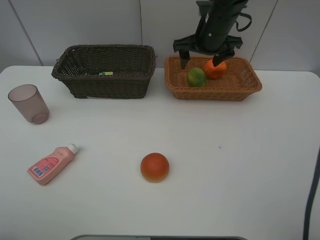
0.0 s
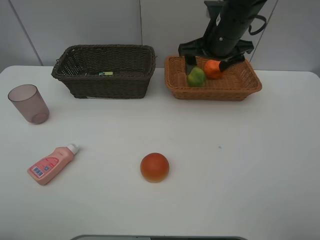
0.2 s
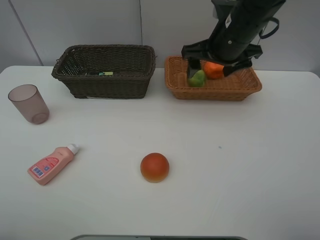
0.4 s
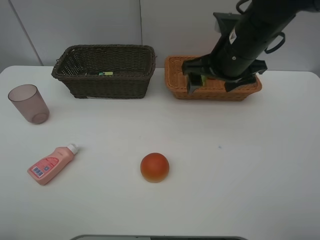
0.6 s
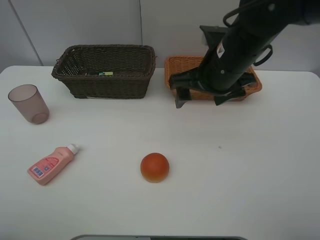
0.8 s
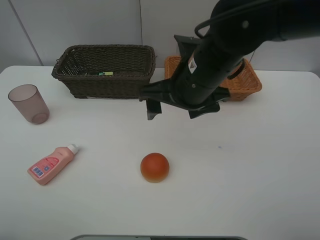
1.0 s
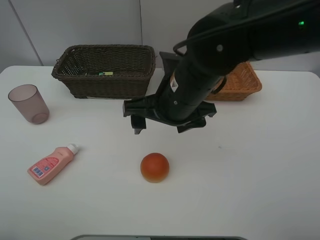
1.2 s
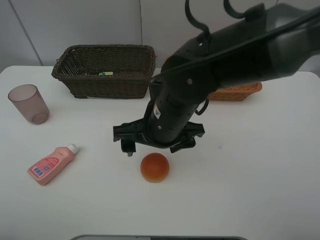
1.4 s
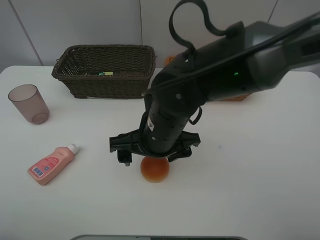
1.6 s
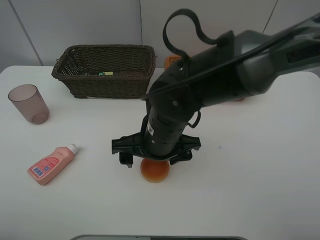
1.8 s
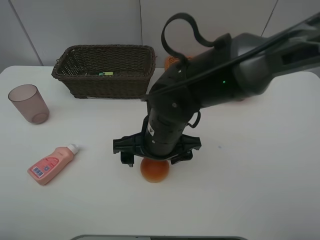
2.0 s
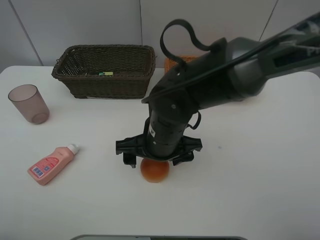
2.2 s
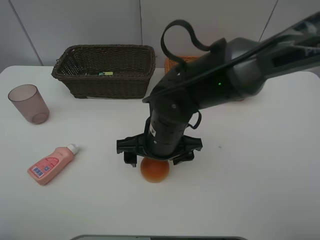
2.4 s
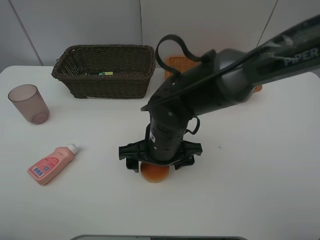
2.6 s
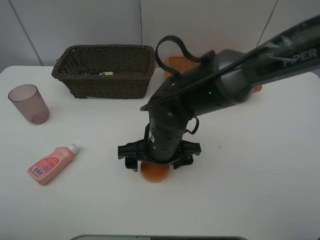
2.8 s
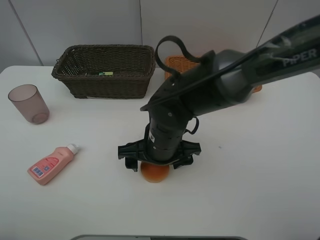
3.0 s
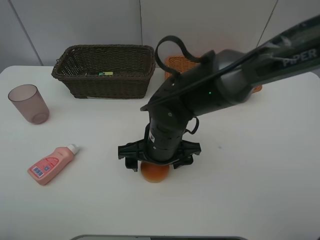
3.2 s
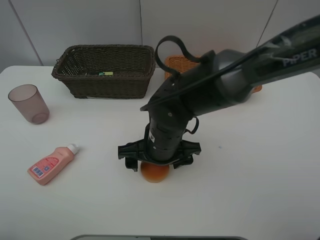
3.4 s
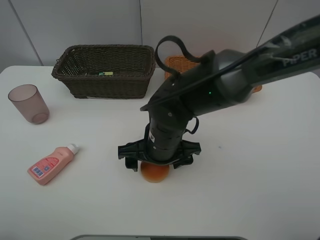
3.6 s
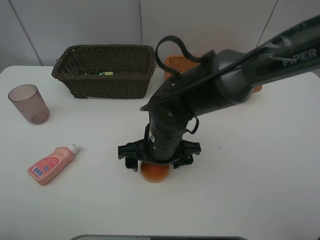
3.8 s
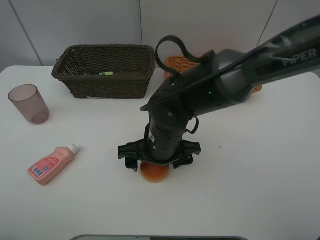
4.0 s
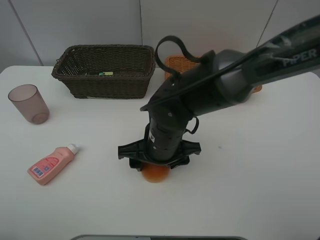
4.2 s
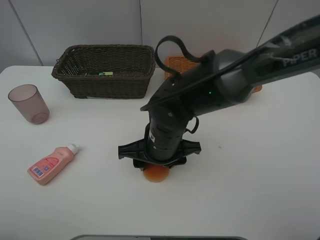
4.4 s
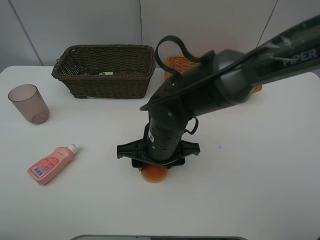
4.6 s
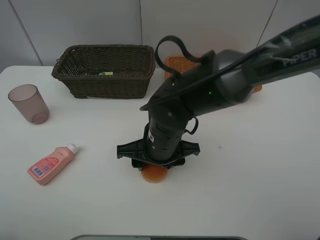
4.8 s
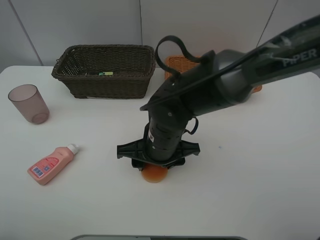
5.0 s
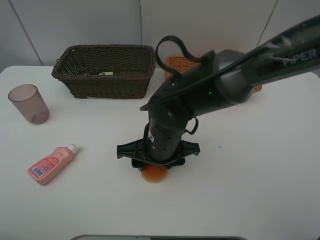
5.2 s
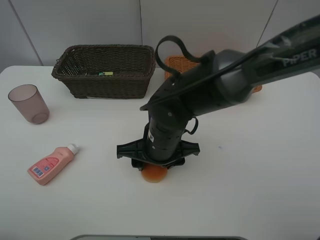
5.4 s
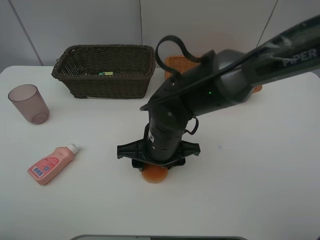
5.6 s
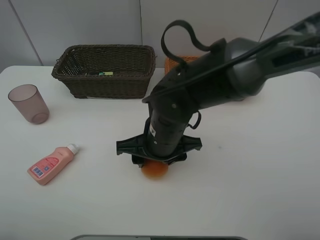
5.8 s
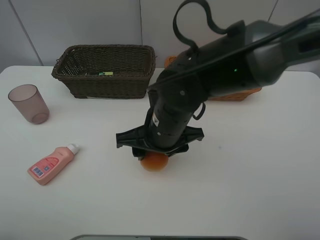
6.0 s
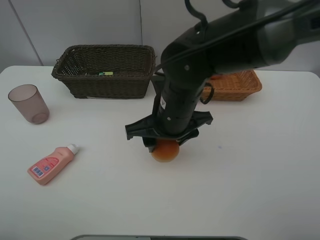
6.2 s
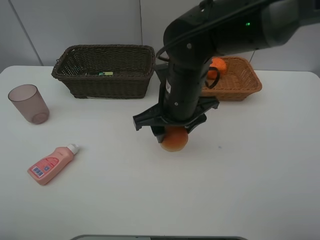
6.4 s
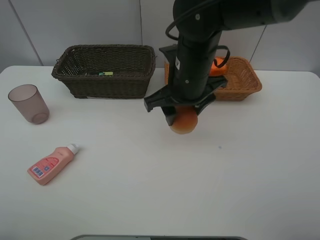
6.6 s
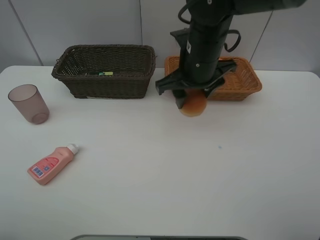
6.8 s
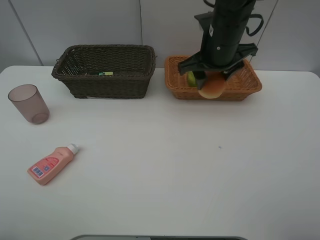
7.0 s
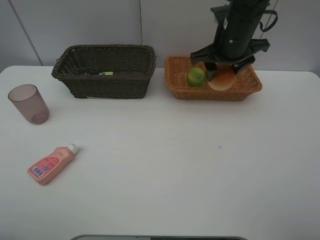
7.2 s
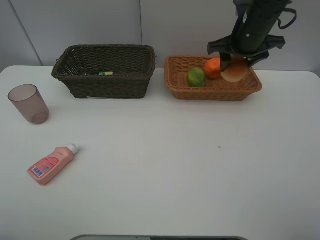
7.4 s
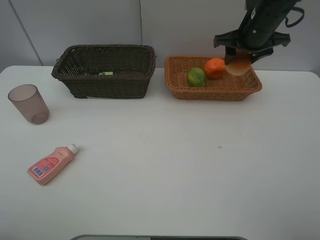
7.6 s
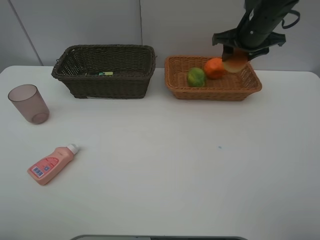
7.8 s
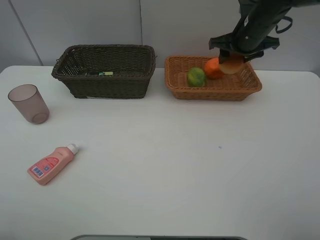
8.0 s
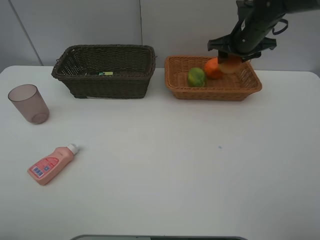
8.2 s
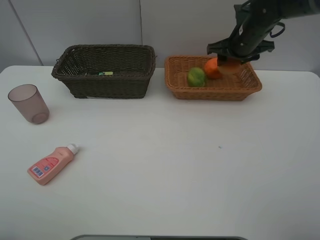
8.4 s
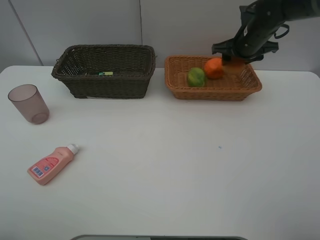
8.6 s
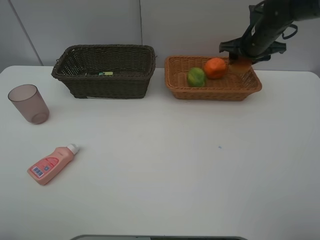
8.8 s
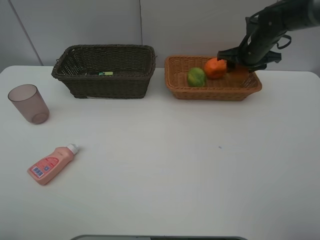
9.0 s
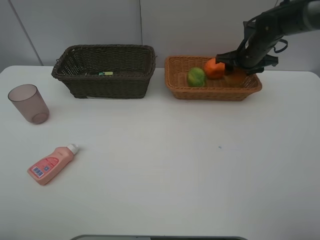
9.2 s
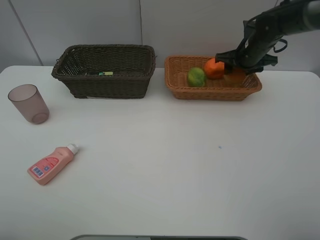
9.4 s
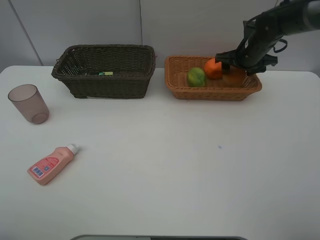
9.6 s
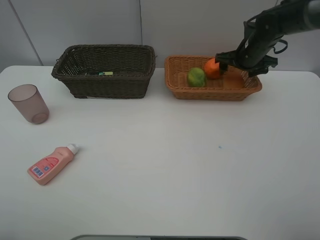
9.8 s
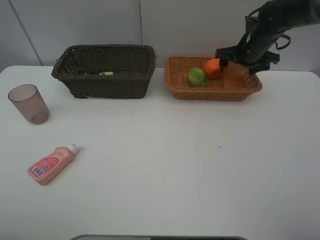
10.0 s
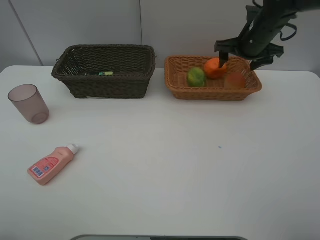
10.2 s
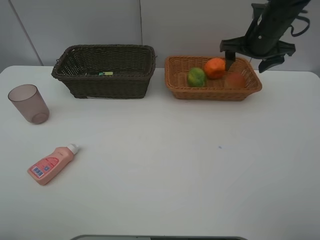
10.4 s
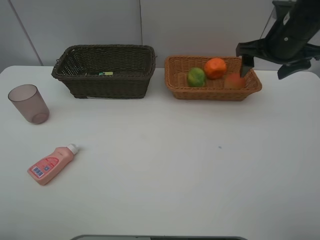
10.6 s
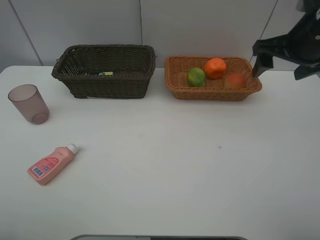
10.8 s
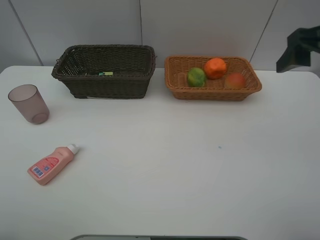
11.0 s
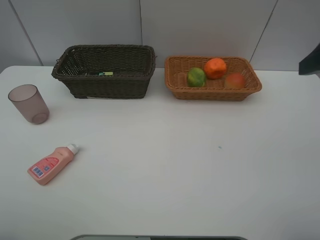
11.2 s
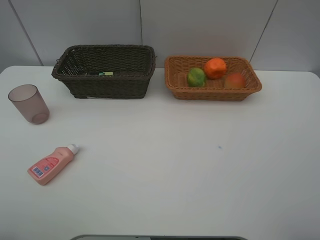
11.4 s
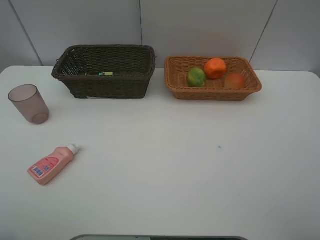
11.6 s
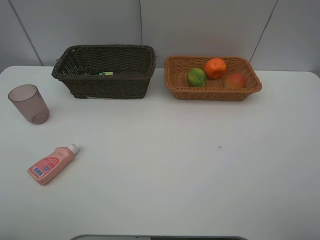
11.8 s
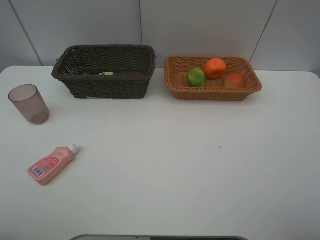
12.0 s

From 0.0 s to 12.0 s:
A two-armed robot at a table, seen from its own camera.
Task of the whole recording: place multiple objects separately in different baskets.
From 0.0 s to 1.6 s: The right gripper goes about 25 cm backward and to the left.
From 1.6 s to 3.0 s: The grippers move only a little.
From 3.0 s to 4.4 s: The right gripper closes.
From 4.4 s to 6.0 s: The grippers stay close to where they were, moving slightly.
From 6.0 s to 7.6 s: The right gripper travels to the right, forward and upward by approximately 30 cm.
From 7.6 s to 9.0 s: The right gripper goes roughly 5 cm downward.
From 9.0 s to 10.4 s: The right gripper moves upward and backward, about 10 cm, and opens its fingers.
From 10.4 s to 12.0 s: The right gripper moves backward, roughly 40 cm.

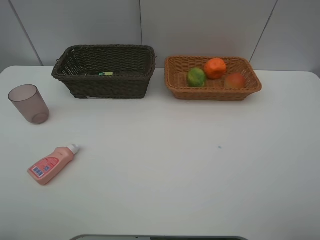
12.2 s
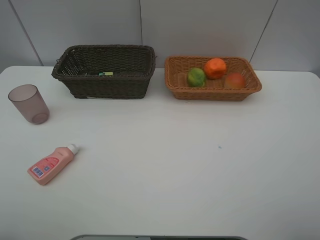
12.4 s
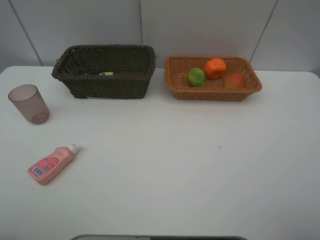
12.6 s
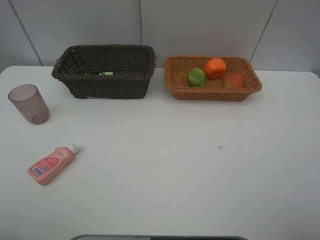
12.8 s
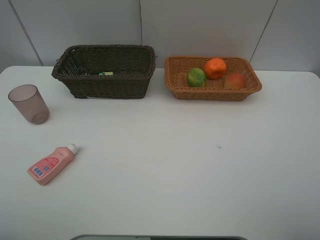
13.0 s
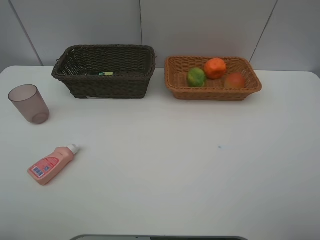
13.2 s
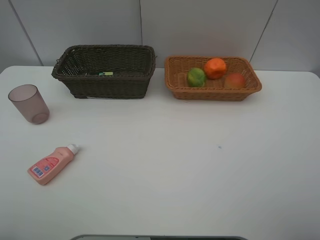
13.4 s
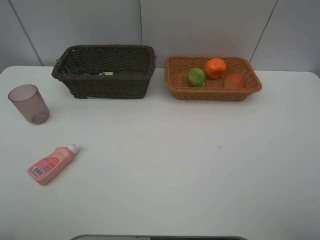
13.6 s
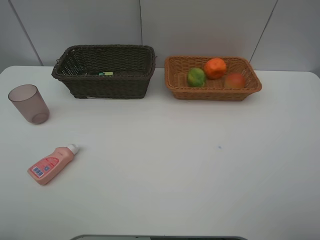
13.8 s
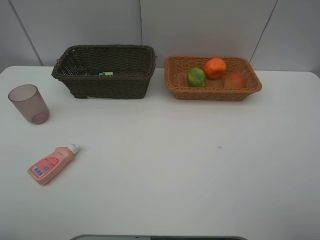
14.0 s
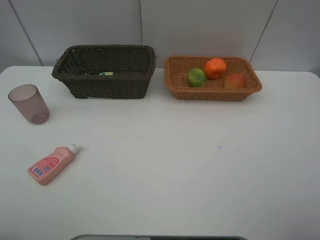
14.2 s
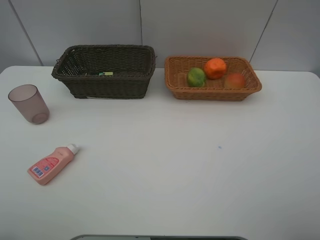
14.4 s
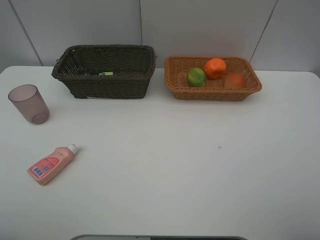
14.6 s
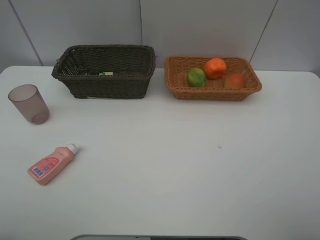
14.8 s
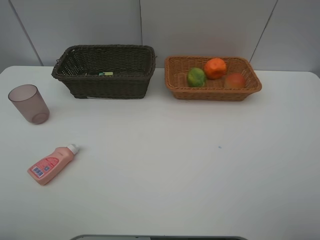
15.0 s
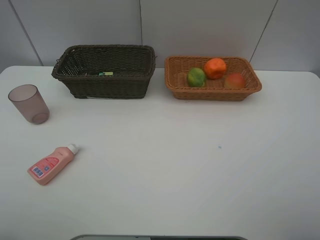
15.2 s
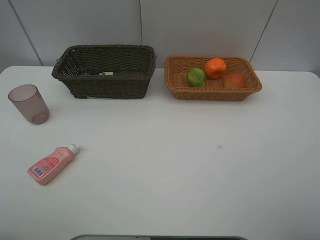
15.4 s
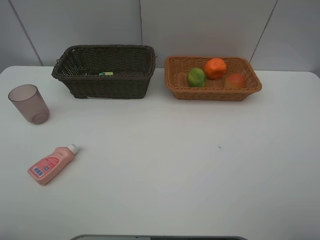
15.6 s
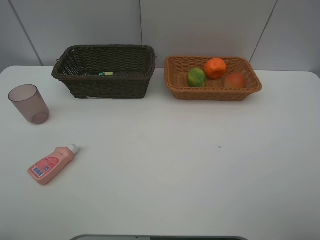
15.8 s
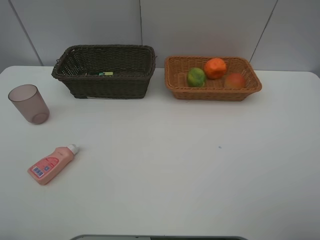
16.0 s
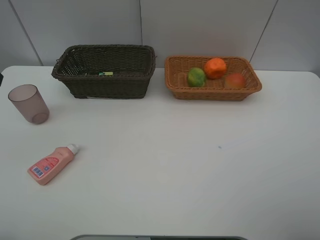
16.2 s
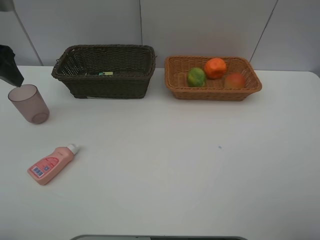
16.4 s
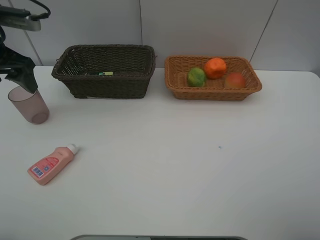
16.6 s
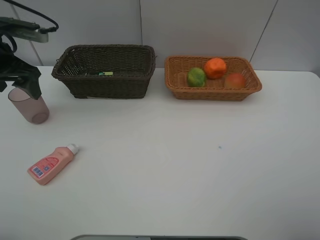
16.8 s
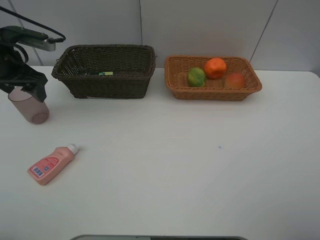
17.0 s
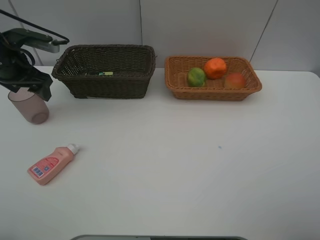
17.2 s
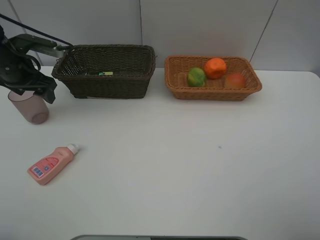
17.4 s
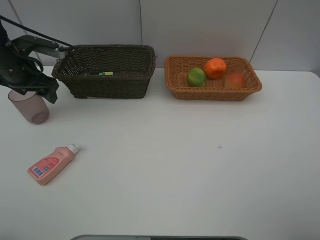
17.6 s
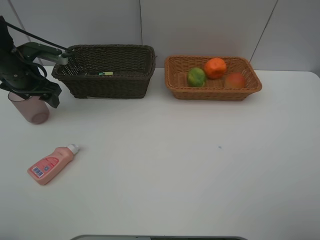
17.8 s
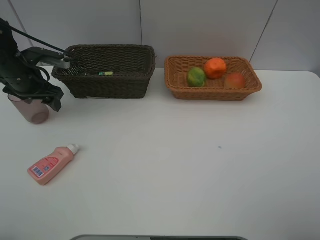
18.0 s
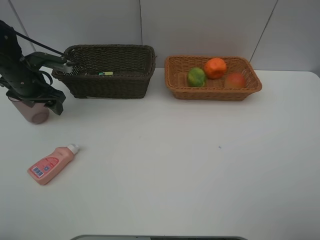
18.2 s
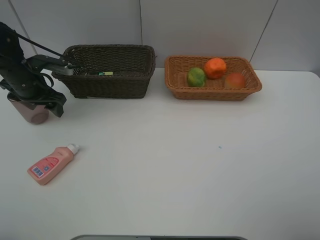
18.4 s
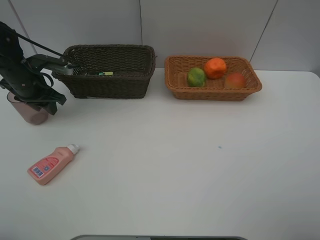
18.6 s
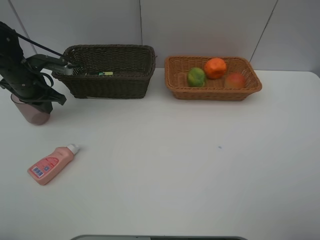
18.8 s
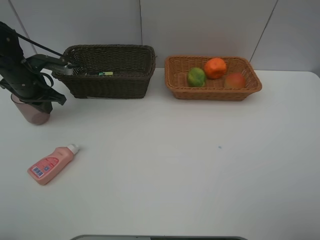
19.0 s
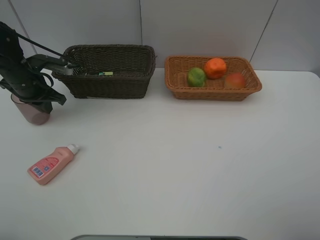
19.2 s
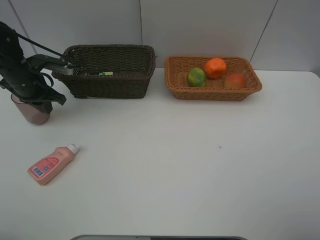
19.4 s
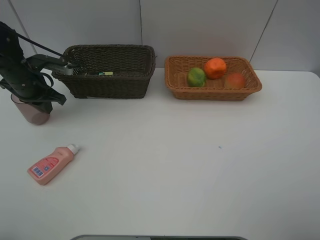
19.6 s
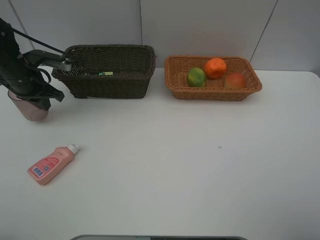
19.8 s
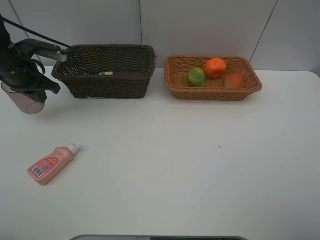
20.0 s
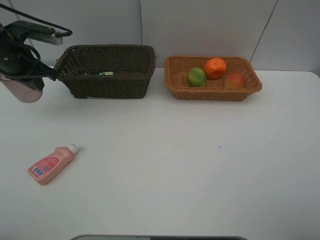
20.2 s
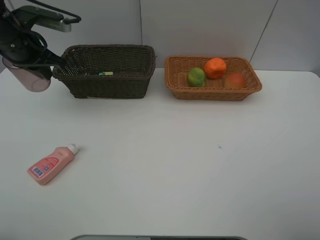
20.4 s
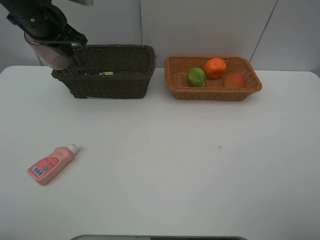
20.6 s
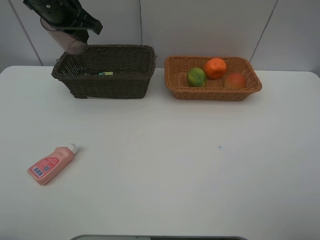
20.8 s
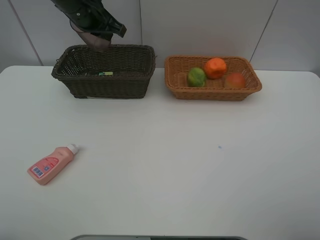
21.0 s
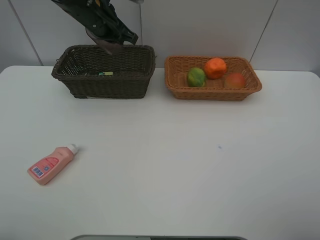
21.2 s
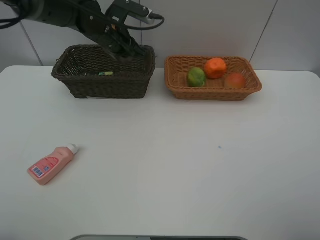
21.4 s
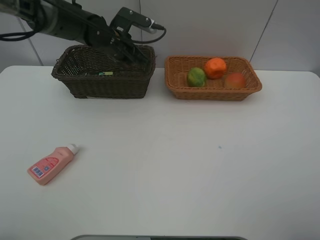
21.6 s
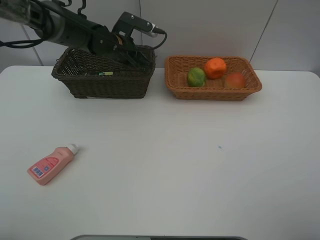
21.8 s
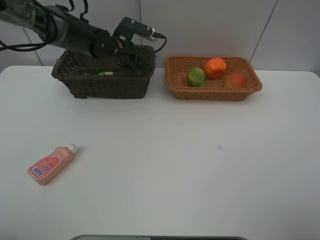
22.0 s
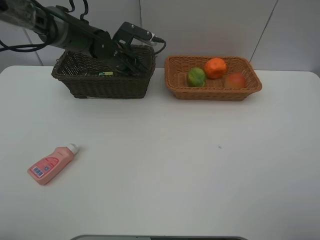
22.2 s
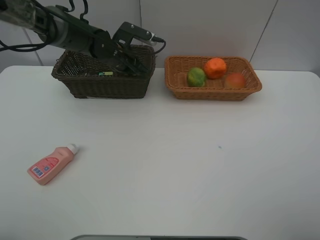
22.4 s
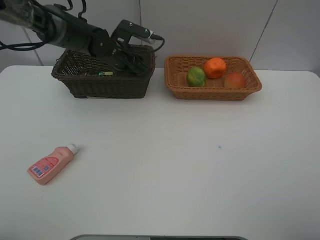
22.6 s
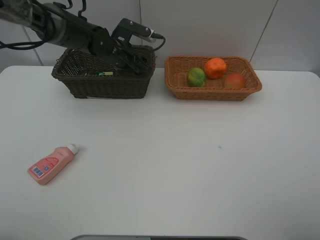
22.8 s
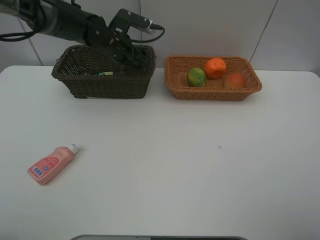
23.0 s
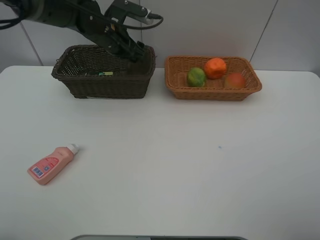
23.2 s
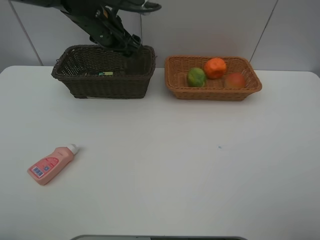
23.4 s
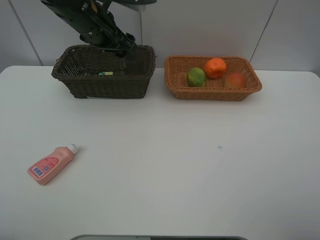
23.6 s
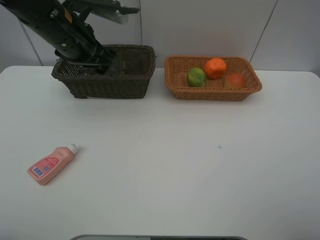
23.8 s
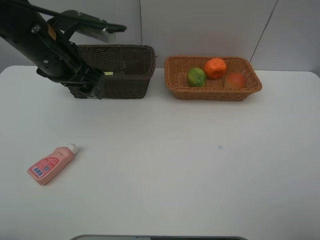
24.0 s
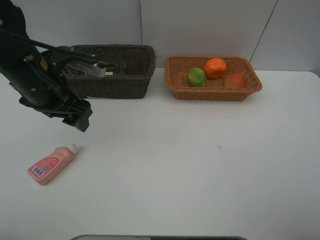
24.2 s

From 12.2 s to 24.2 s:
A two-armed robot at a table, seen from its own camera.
Task of the whole recording: place multiple objects separately in different baskets.
From 15.2 s to 16.6 s: The left gripper travels forward by approximately 30 cm.
From 16.6 s to 18.2 s: The left gripper heads downward and forward, covering some 15 cm.
From 18.2 s to 19.8 s: The left gripper closes up.
From 19.8 s to 21.2 s: The left gripper shifts approximately 20 cm to the right and upward.
From 21.2 s to 22.6 s: The left gripper moves downward, about 10 cm, and opens up.
From 22.6 s to 24.2 s: The left gripper travels backward and to the left by some 20 cm.
